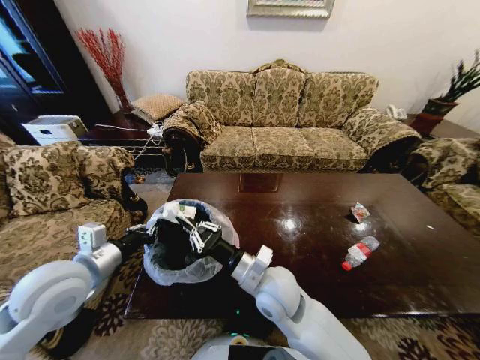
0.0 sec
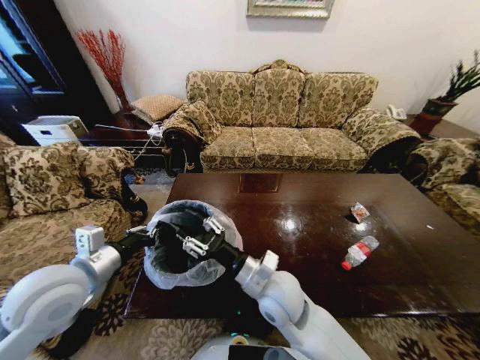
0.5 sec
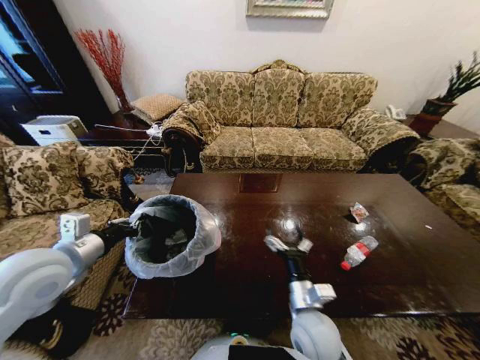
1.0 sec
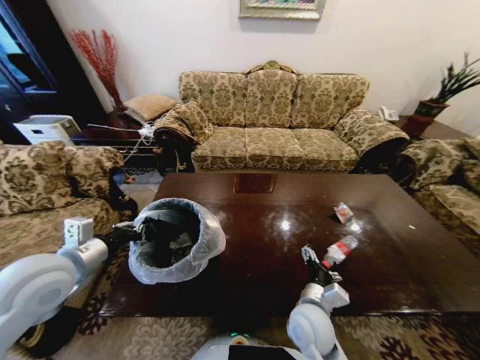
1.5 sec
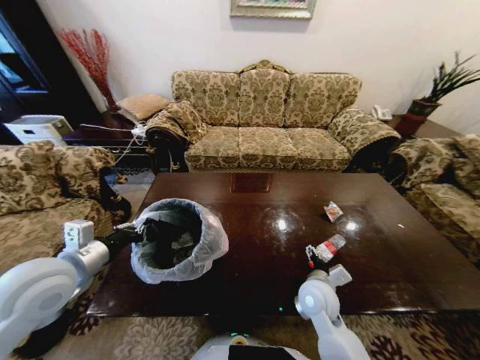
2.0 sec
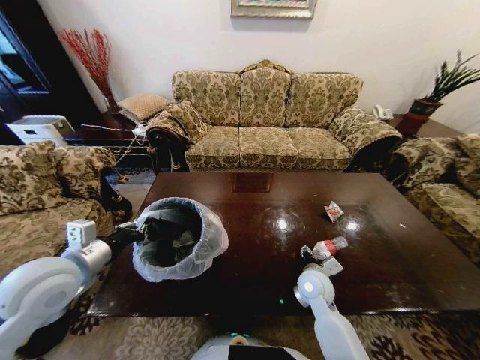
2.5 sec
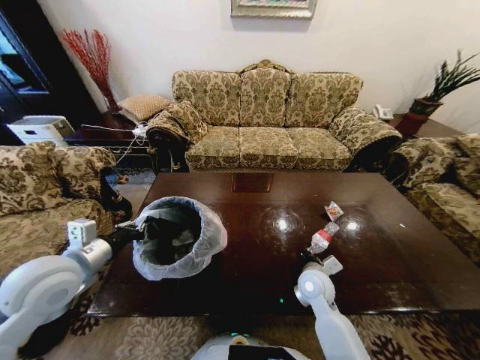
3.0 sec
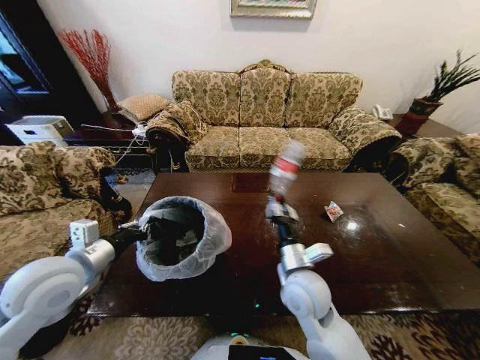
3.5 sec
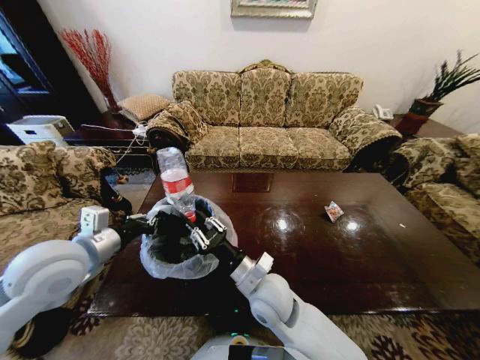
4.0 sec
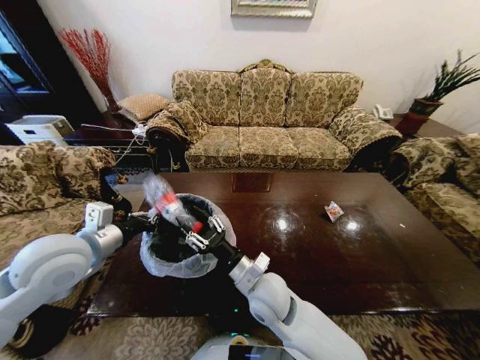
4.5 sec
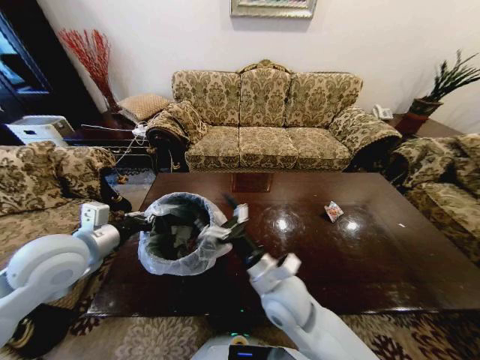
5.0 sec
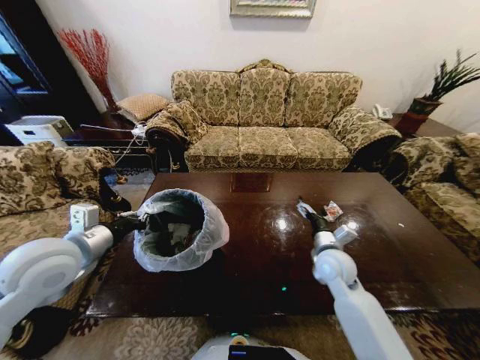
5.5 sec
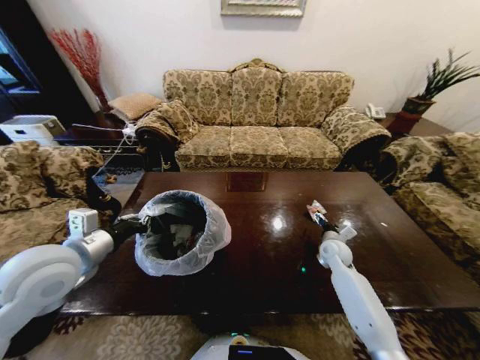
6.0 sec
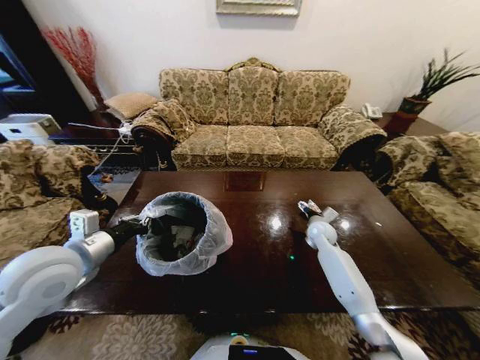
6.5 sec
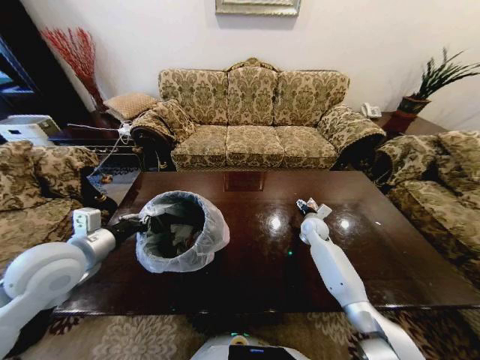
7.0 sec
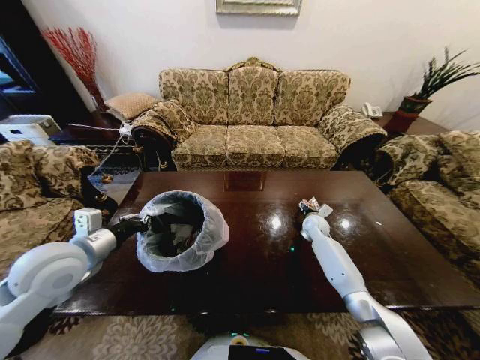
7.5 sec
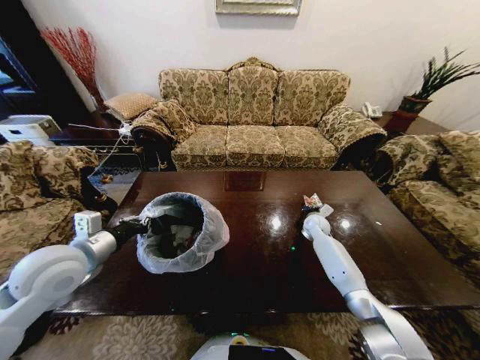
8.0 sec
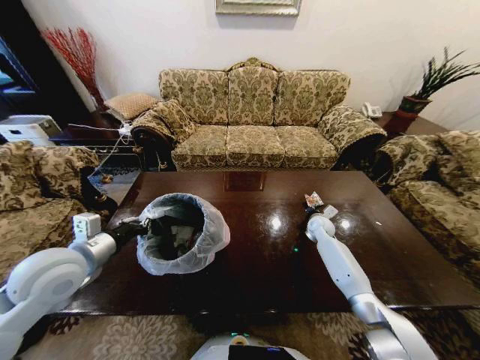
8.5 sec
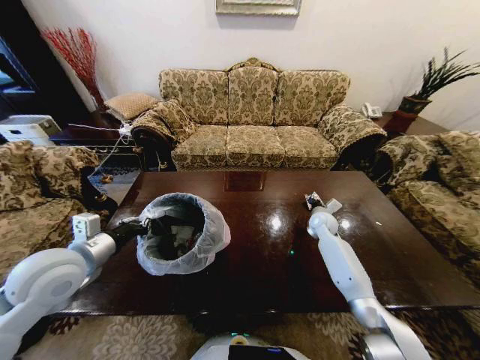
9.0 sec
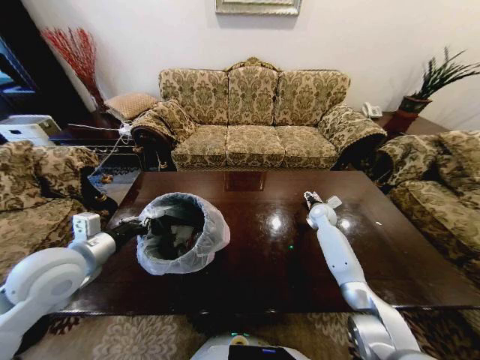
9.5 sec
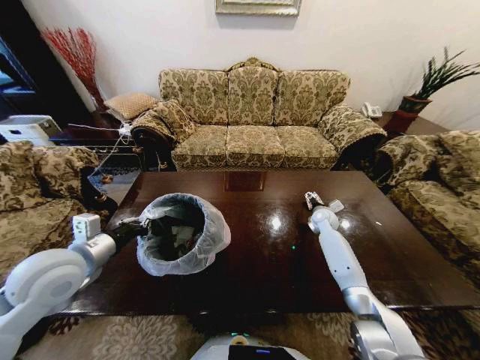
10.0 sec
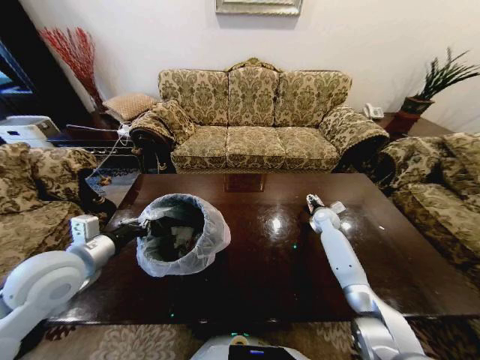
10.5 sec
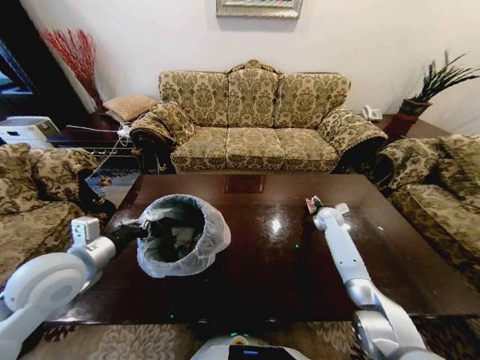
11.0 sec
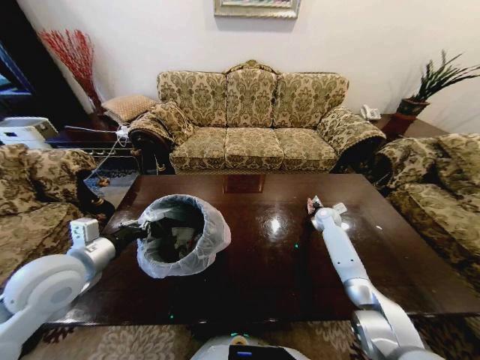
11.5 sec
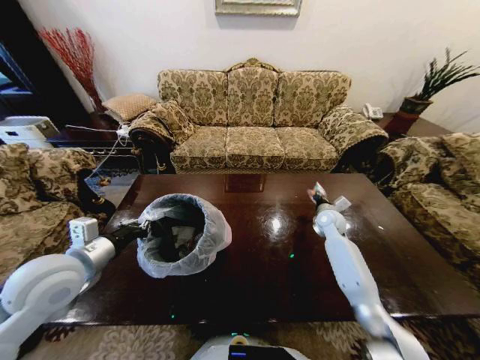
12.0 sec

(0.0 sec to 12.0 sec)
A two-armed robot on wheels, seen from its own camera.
Task of the whole recording: Move to the front of the table and place the trash on the table into the trash bin.
0.0 sec - 2.0 sec: The right gripper travels to the right and downward by some 15 cm, and opens its fingers.
2.0 sec - 4.0 sec: The right gripper moves to the left and upward, approximately 15 cm, and closes up.
4.0 sec - 6.0 sec: The right gripper moves to the right, forward and downward, some 35 cm, and opens.
6.0 sec - 8.0 sec: The right gripper goes some 10 cm forward, and closes.
8.0 sec - 10.0 sec: The right gripper opens.
10.0 sec - 12.0 sec: The right gripper ends up some 5 cm from where it was, and closes its fingers.

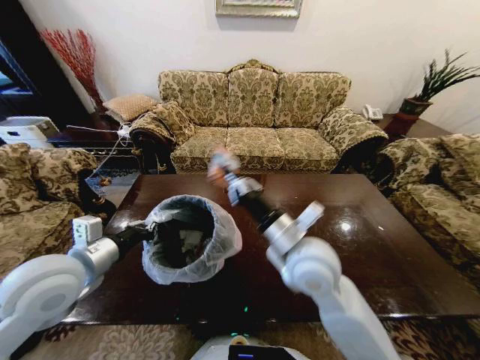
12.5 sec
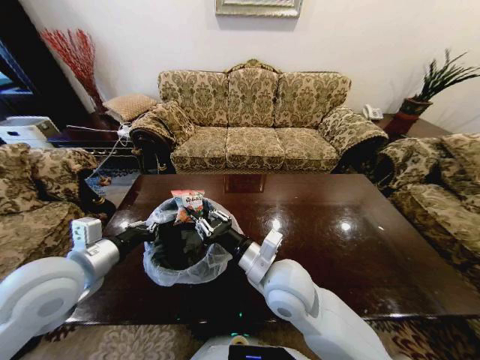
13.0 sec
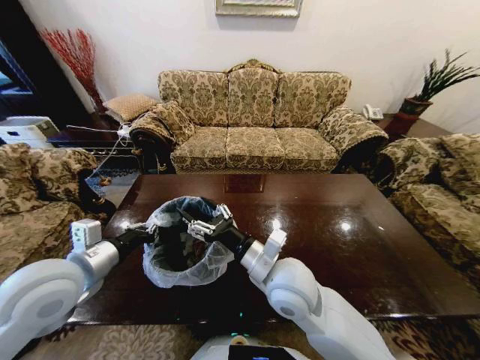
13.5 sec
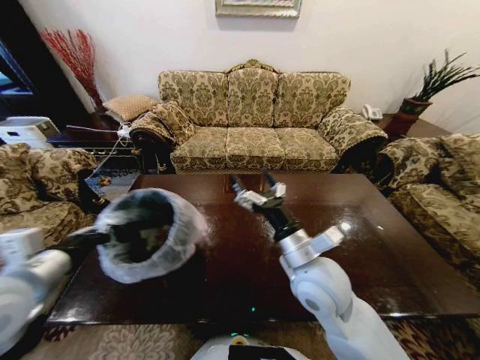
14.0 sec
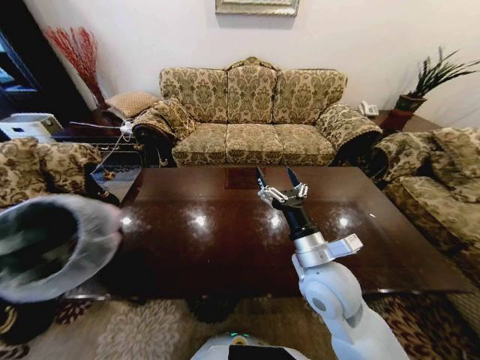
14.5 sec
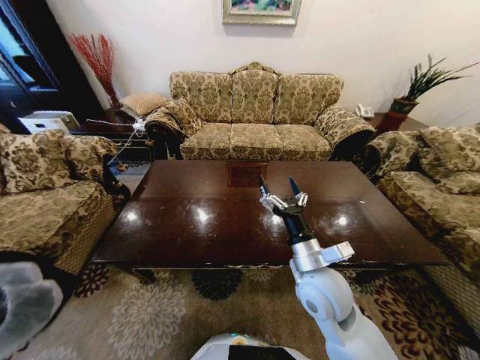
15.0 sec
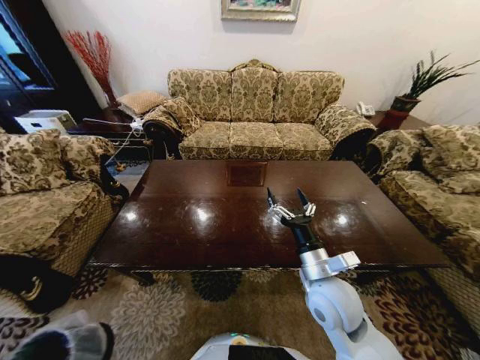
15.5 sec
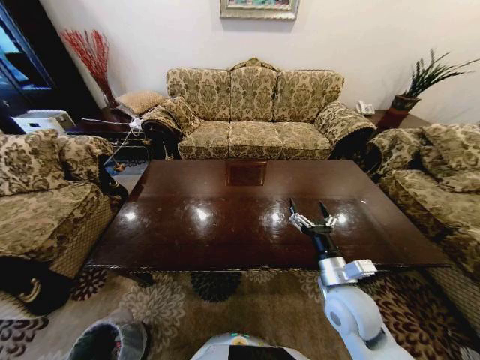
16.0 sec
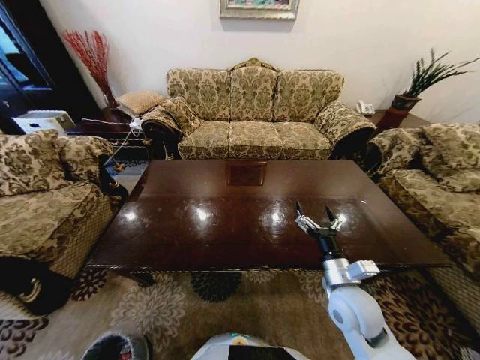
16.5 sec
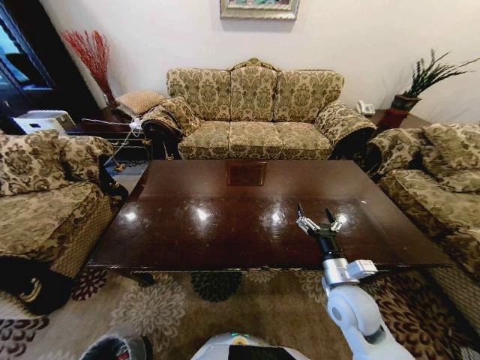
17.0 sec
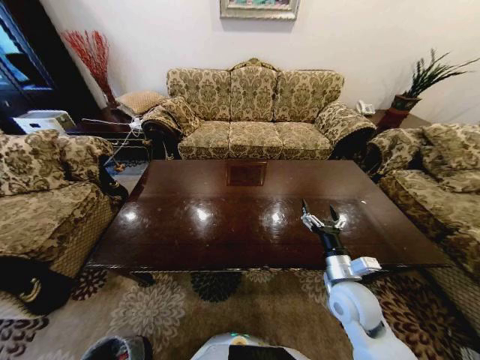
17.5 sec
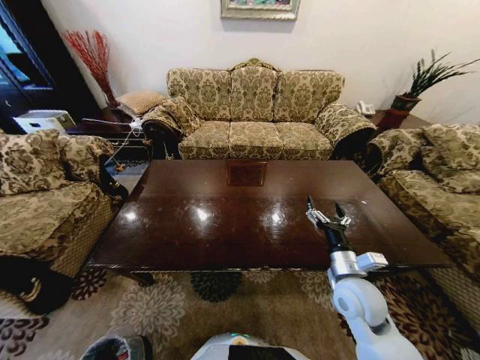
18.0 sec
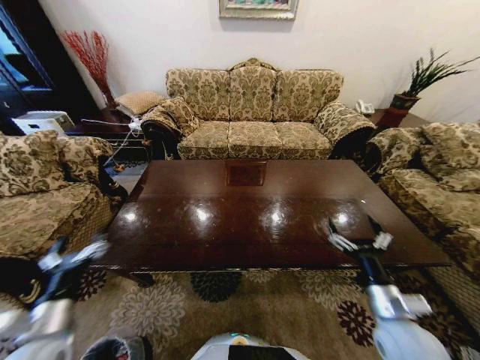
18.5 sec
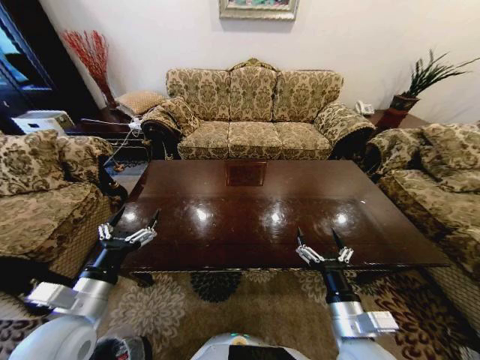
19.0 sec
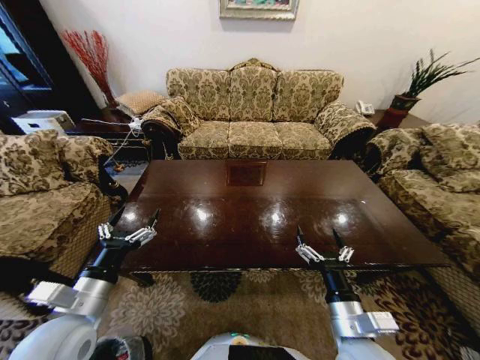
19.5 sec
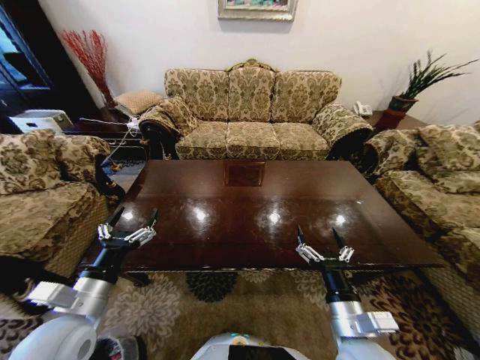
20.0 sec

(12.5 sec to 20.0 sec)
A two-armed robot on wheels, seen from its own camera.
Task of the whole recording: Move to the front of the table and place the trash on the table into the trash bin.
12.5 sec - 14.5 sec: The left gripper goes some 20 cm to the left and backward. The right gripper ends up roughly 5 cm from where it was, and opens its fingers.
14.5 sec - 16.5 sec: The left gripper goes roughly 50 cm downward; the right gripper shifts some 10 cm downward and to the right.
16.5 sec - 18.0 sec: The left gripper is displaced backward, upward and to the left by about 15 cm, and opens up.
18.0 sec - 20.0 sec: The left gripper is displaced upward, forward and to the right by about 40 cm. The right gripper heads backward, covering about 10 cm.
